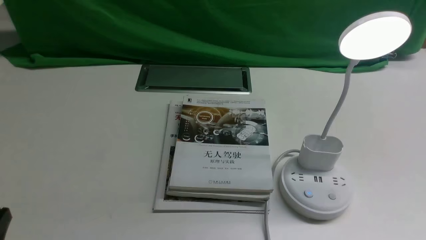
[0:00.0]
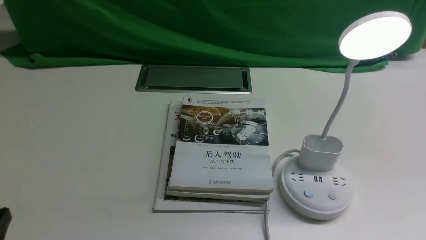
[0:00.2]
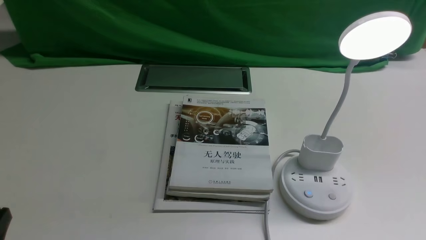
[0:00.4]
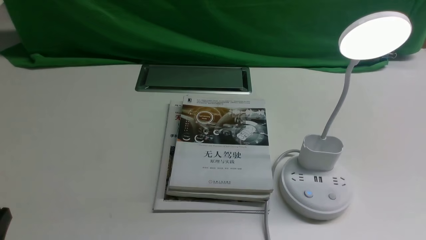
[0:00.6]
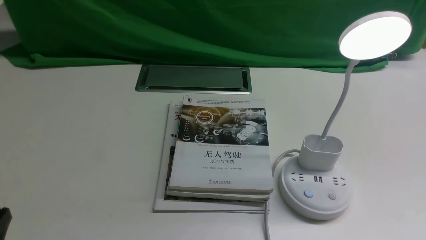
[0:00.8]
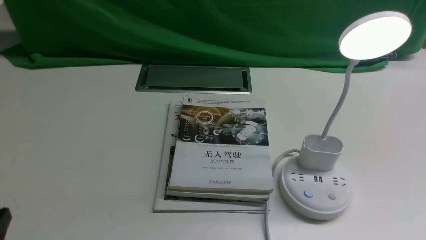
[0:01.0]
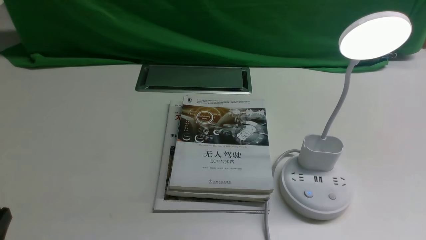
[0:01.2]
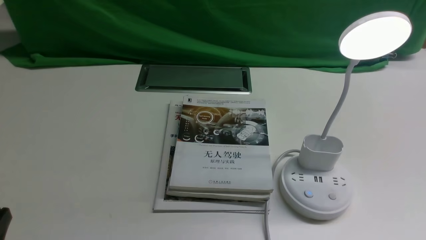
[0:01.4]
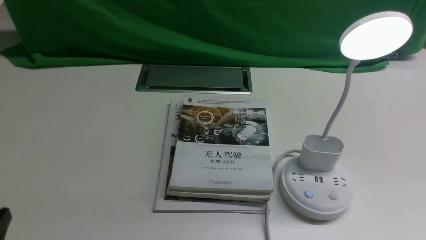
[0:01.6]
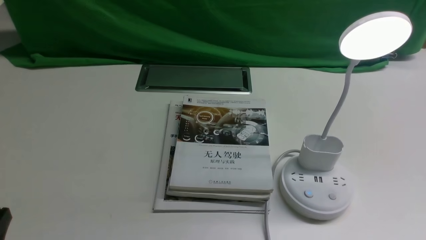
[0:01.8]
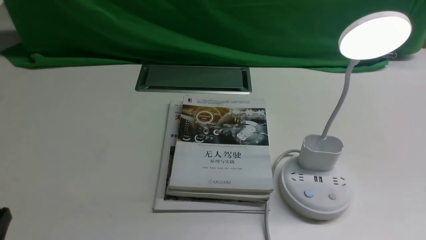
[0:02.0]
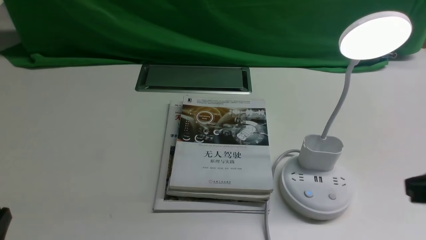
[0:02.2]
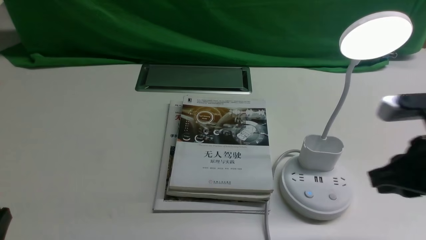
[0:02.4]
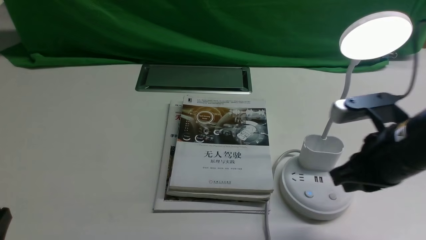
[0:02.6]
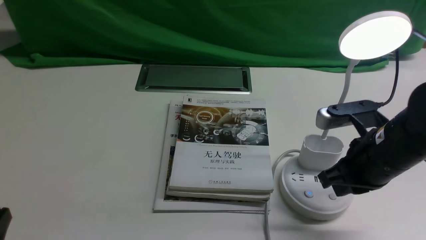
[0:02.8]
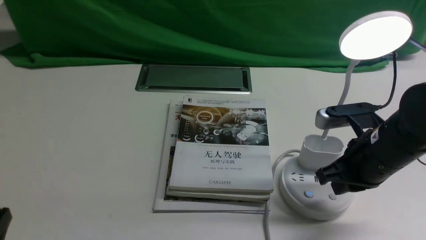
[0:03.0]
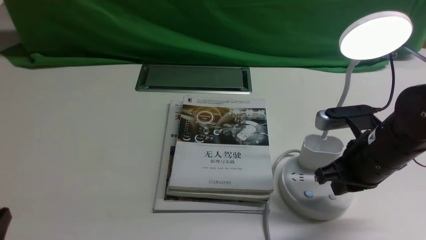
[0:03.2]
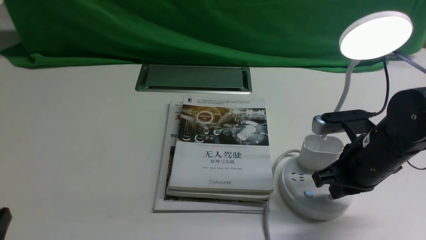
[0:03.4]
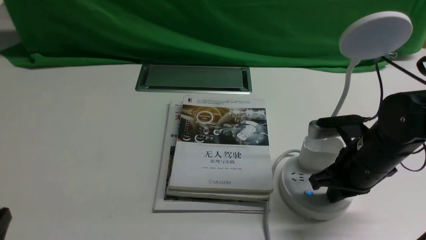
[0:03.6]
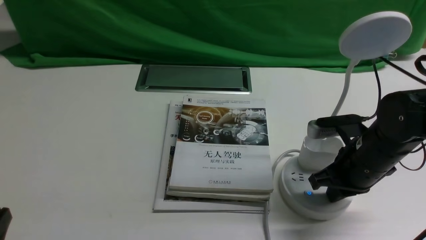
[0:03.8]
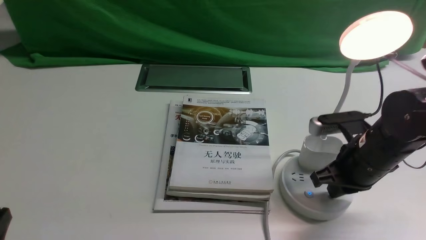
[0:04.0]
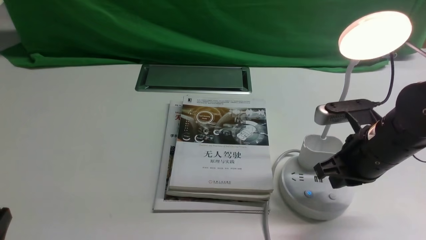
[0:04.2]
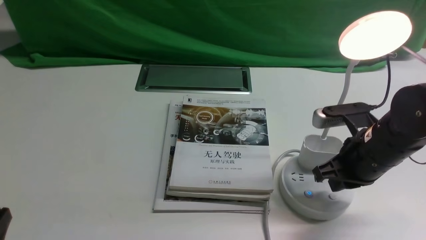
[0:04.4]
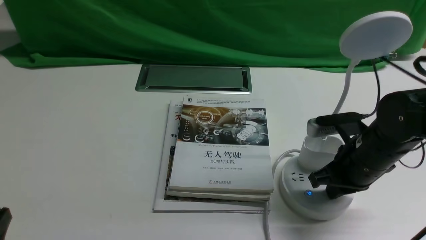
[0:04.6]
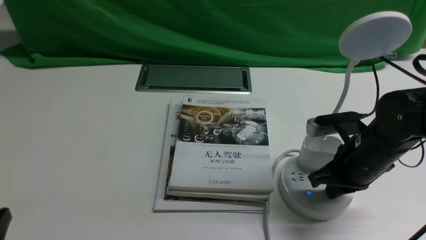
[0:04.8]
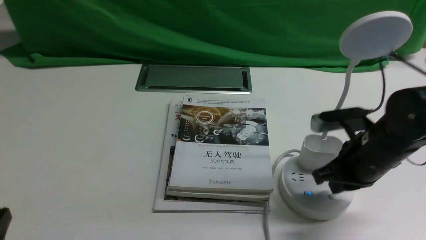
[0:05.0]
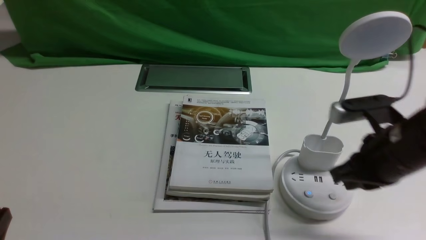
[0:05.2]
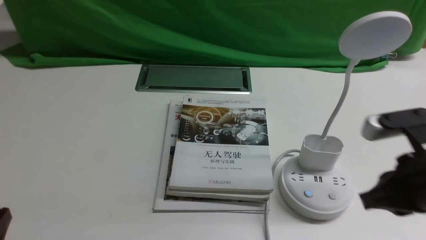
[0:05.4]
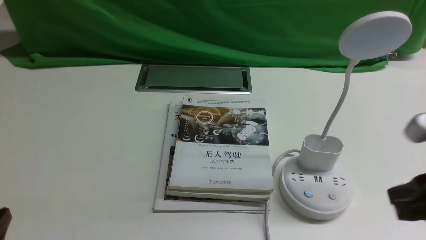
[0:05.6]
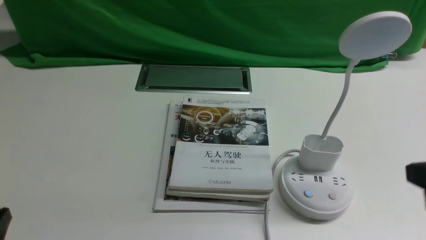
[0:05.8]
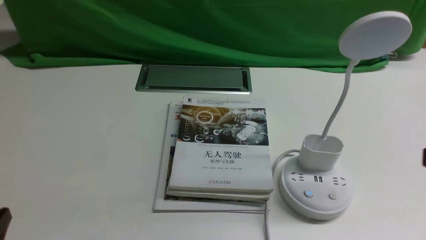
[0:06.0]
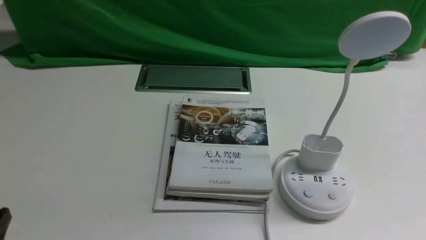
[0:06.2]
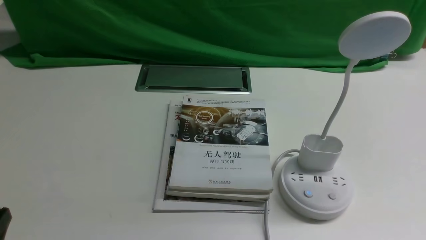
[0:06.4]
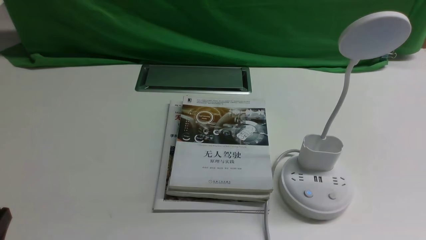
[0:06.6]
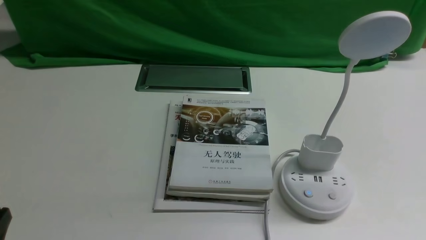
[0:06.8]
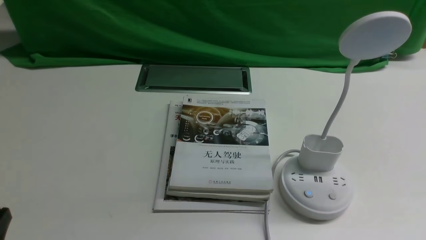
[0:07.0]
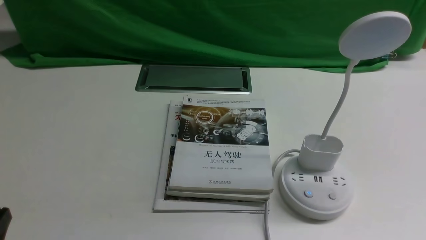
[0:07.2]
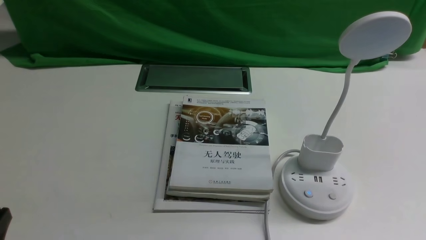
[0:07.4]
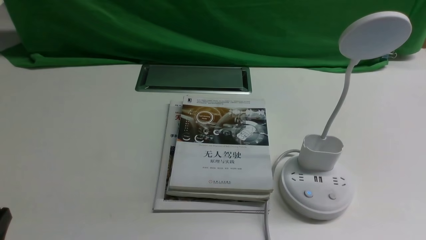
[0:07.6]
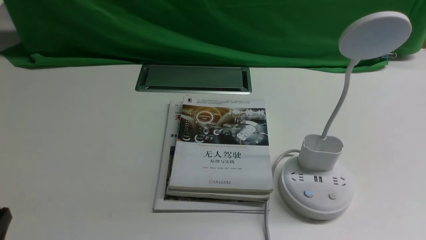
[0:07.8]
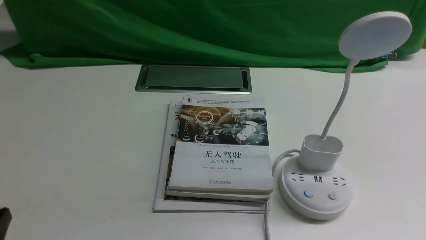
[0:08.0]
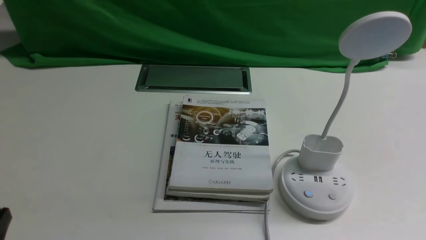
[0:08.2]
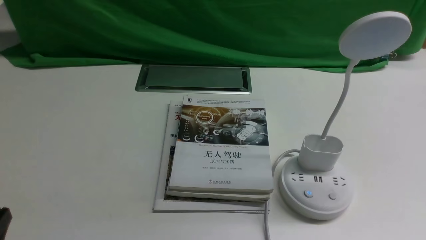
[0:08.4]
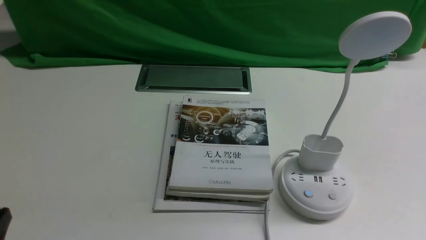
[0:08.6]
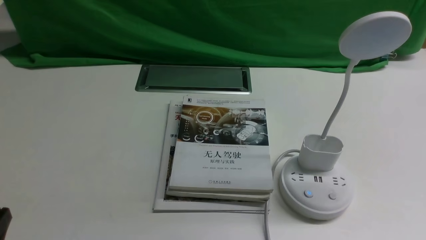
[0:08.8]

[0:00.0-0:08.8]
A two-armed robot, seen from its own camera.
Task of the whole recording: turn off the desk lamp on the white desktop by hand.
Step, 0:00.0 to 0:05.0: use the right arm to press the button switch on the lamp holder.
0:01.4 to 0:03.0: The right gripper is displaced forward and to the left by some 25 cm, and closes its fingers.
0:03.0 to 0:04.4: The grippers stay close to where they were, moving slightly.
0:04.4 to 0:05.8: The right gripper shifts about 20 cm backward and upward.
